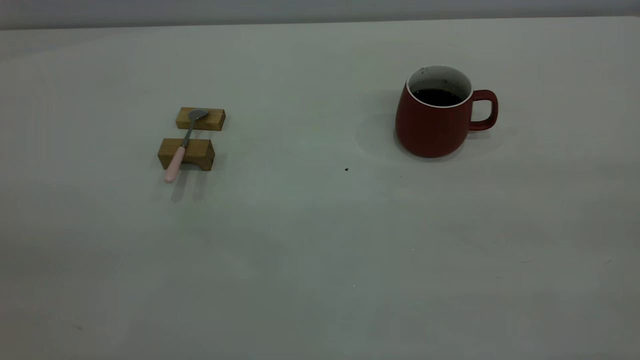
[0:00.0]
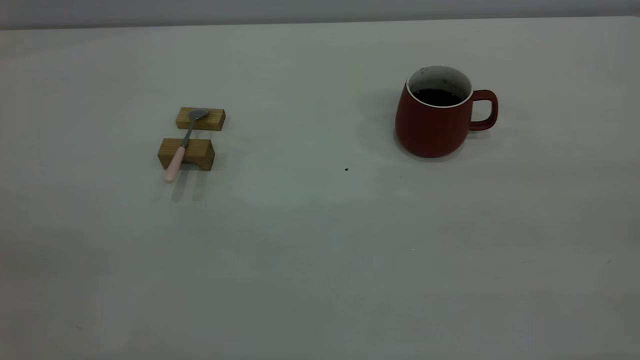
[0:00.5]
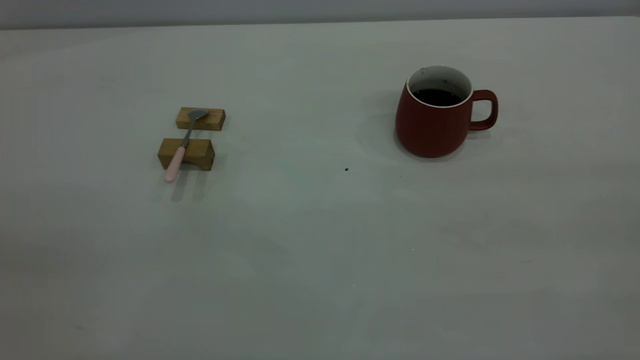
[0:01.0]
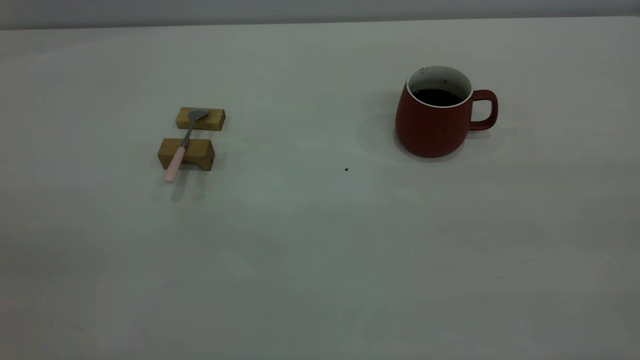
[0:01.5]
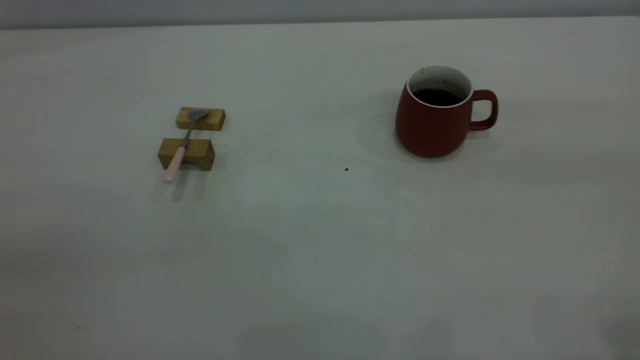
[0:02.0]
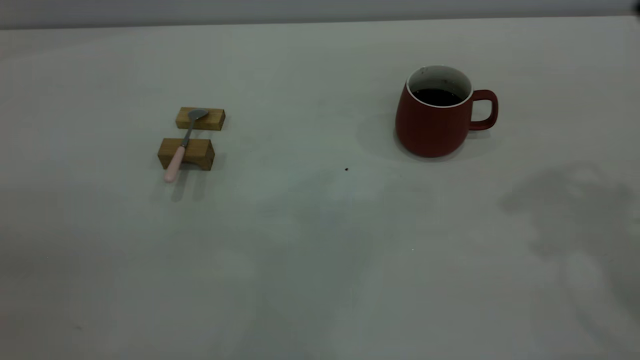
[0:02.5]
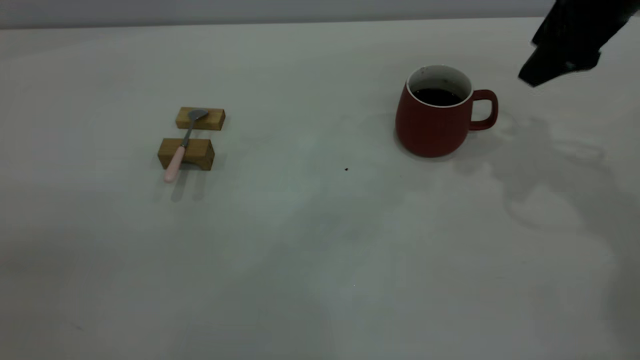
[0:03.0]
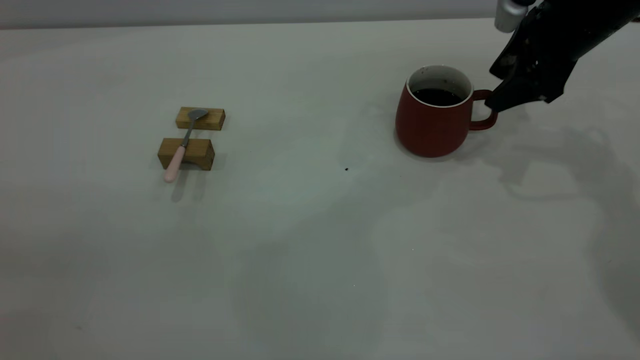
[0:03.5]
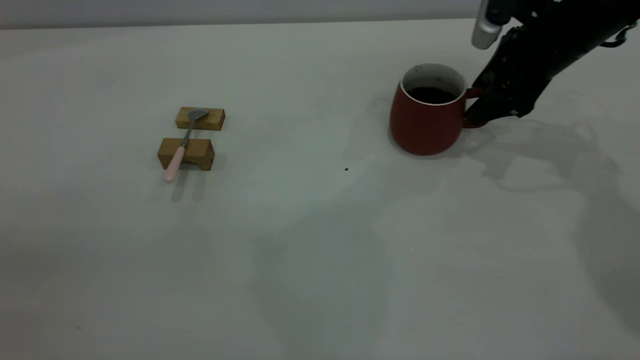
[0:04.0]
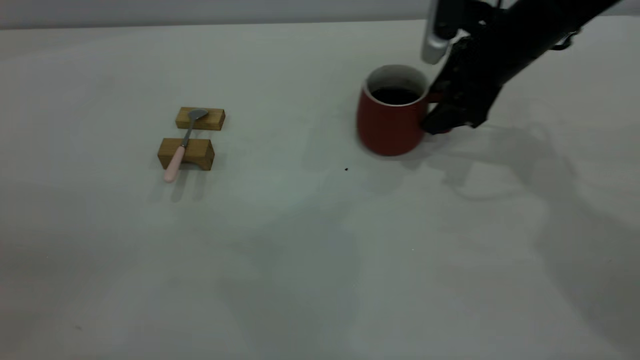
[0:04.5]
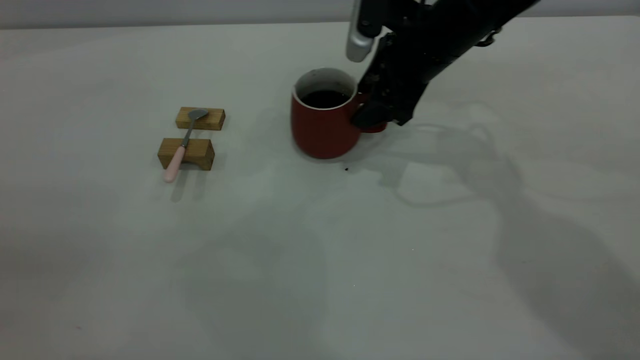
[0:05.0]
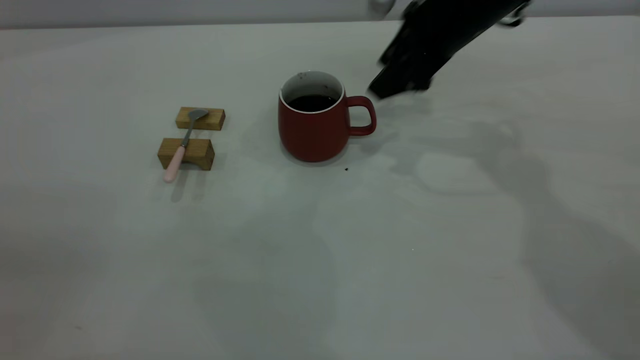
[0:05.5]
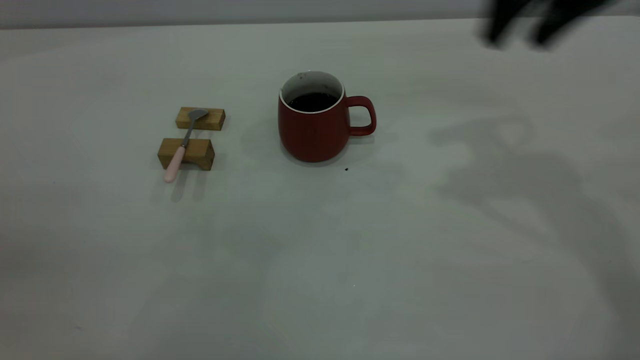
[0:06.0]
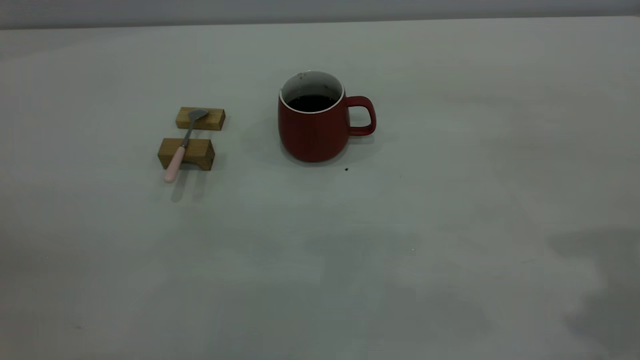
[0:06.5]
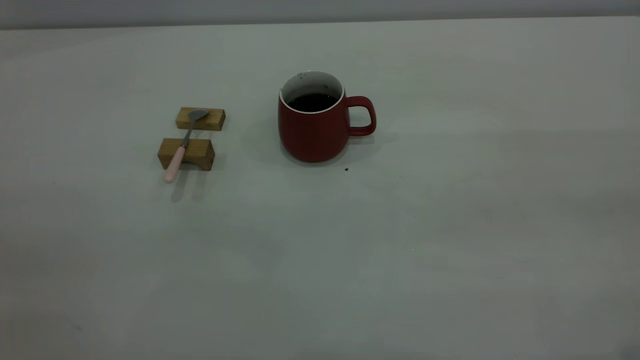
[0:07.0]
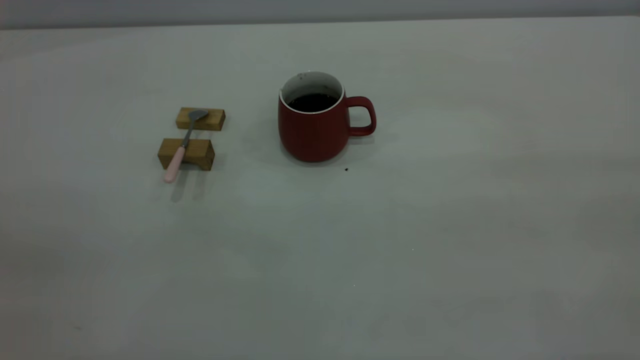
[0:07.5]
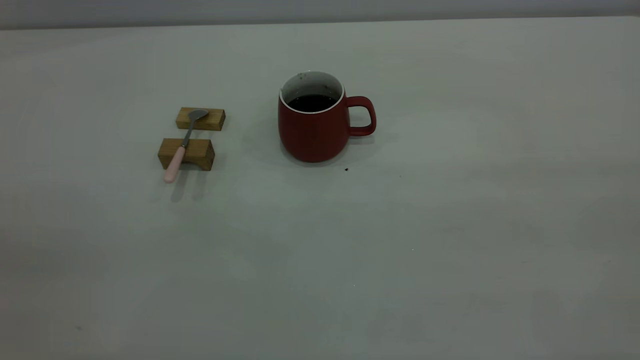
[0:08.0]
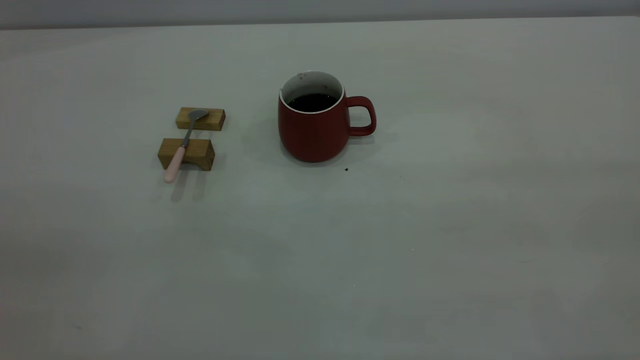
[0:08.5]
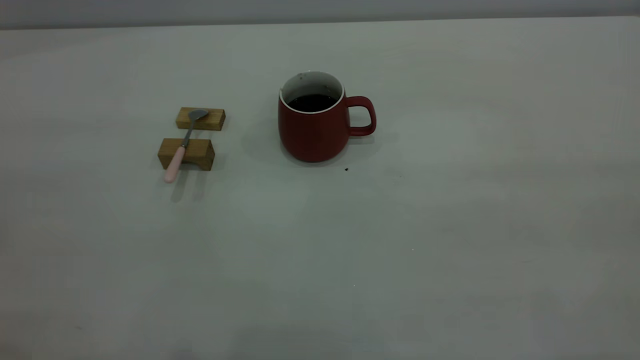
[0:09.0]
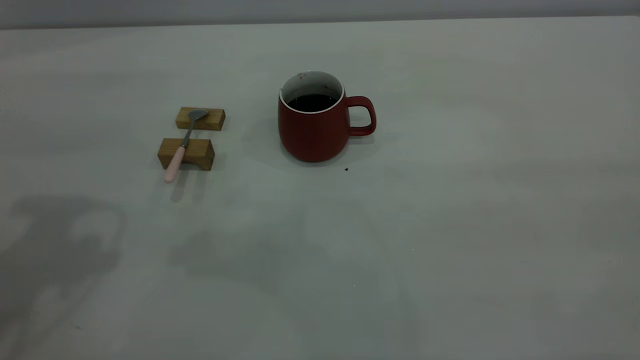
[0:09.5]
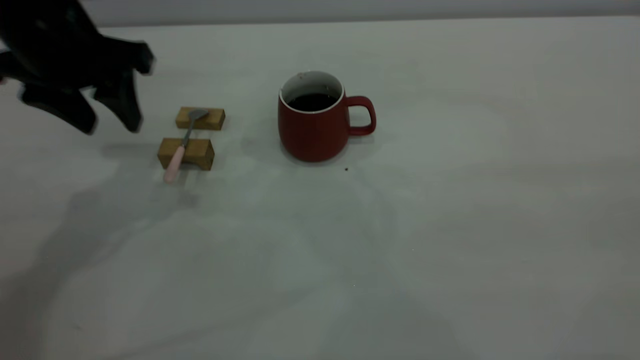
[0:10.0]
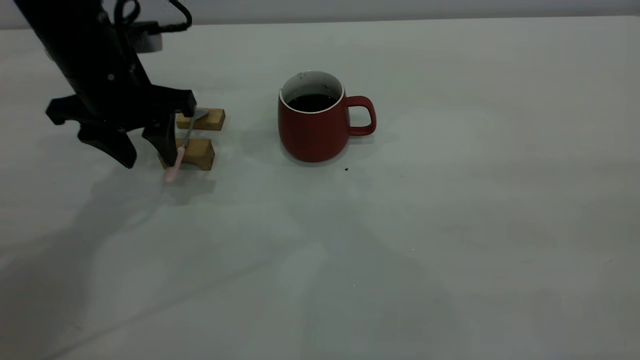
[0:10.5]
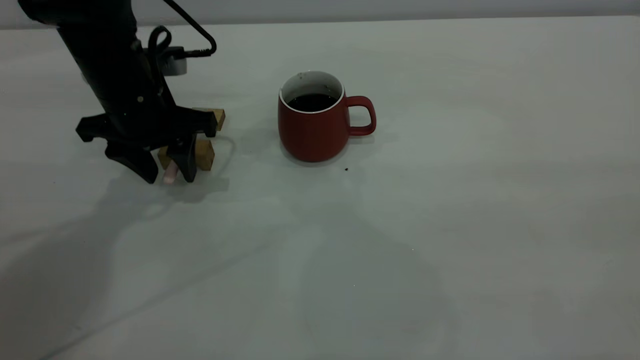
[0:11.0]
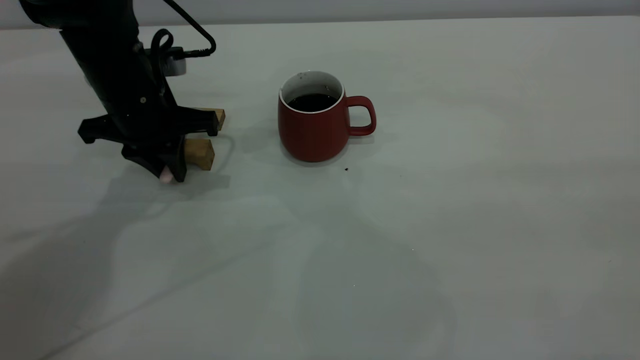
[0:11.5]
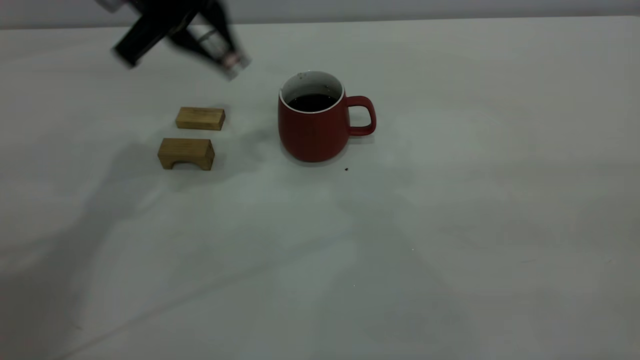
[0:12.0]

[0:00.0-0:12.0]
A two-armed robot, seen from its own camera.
Step, 0:00.0 to 0:05.5: Move the cup with coffee to the center of view.
Step, 0:06.0 to 0:11.5: Pick up the spoon.
0:02.0 to 0:04.0: The right gripper heads forward and downward, covering roughly 40 cm.
0:04.0 to 0:06.0: The right gripper travels upward and backward by roughly 20 cm.
0:06.0 to 0:08.0: The right gripper shifts about 35 cm backward.
0:08.0 to 0:10.0: The left gripper travels forward and downward by some 40 cm.
0:10.0 to 0:12.0: The left gripper travels to the right and forward by approximately 10 cm, travels downward and back again, about 10 cm each way, and closes its fingers.

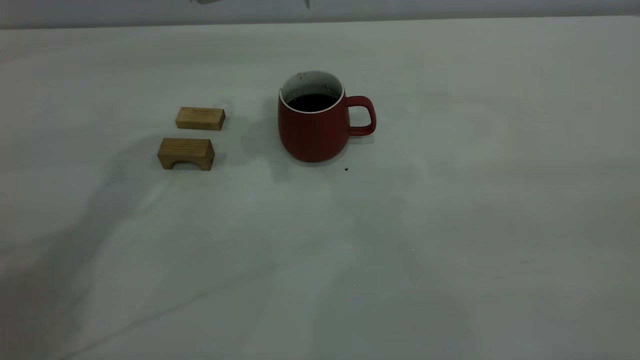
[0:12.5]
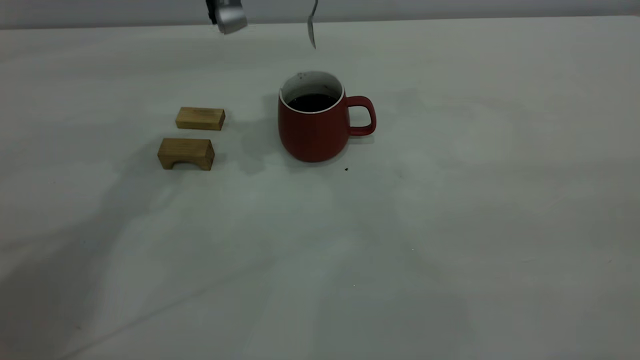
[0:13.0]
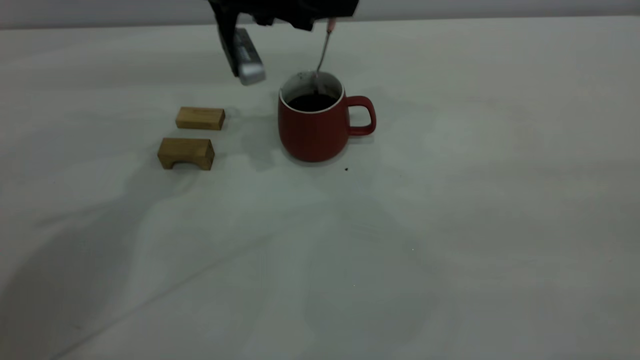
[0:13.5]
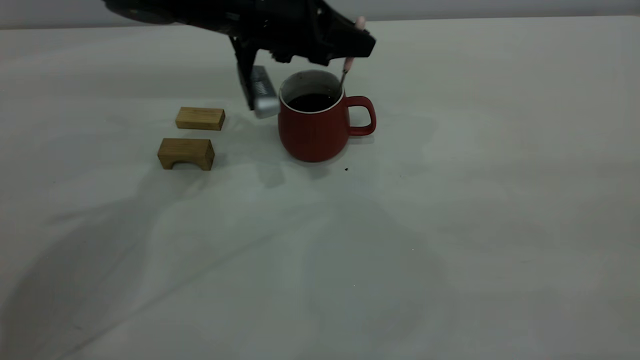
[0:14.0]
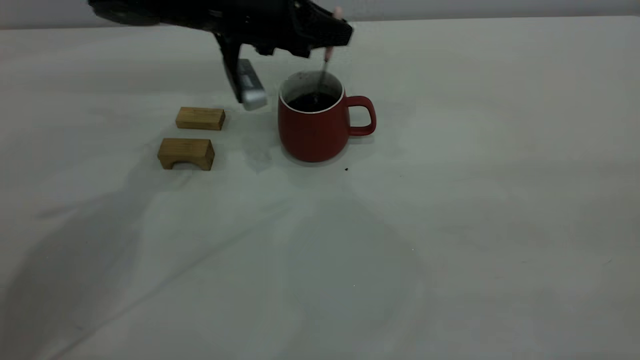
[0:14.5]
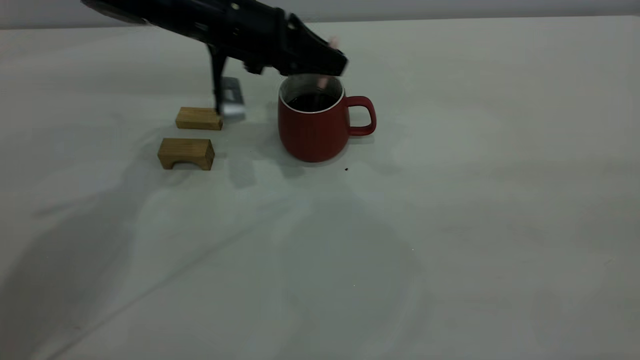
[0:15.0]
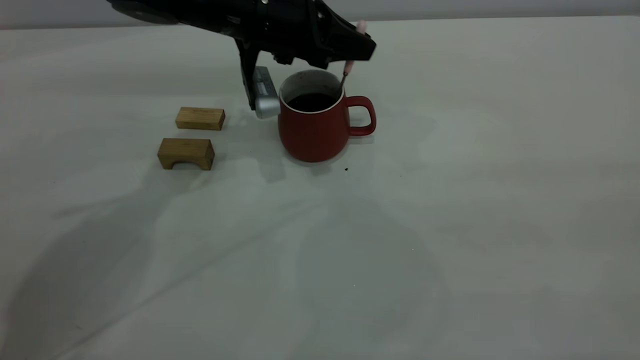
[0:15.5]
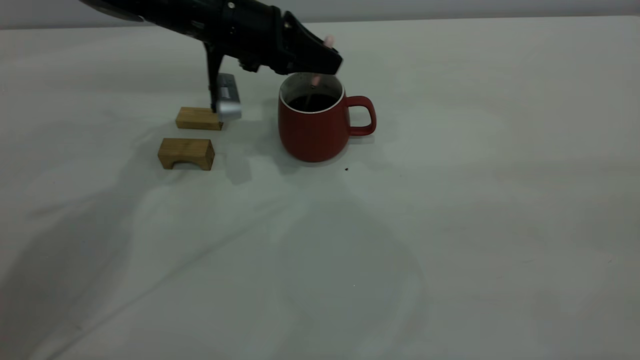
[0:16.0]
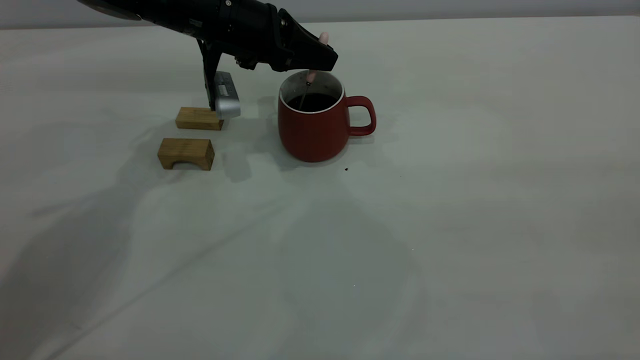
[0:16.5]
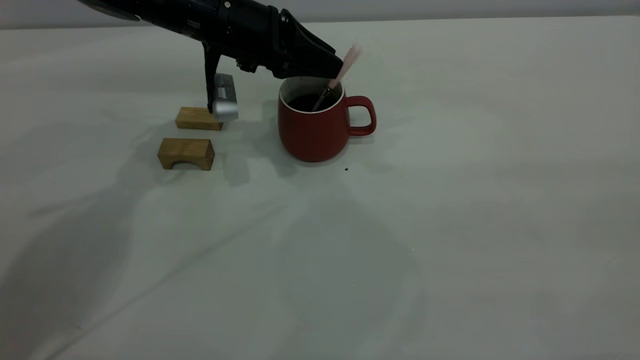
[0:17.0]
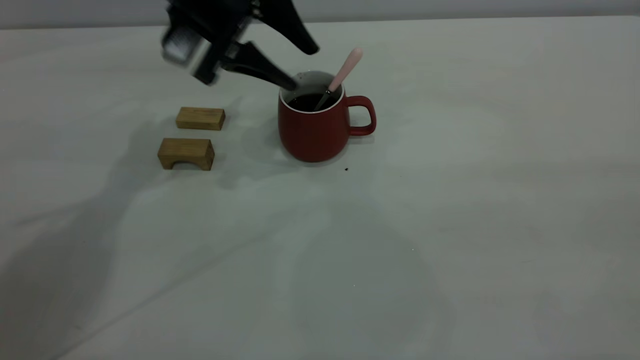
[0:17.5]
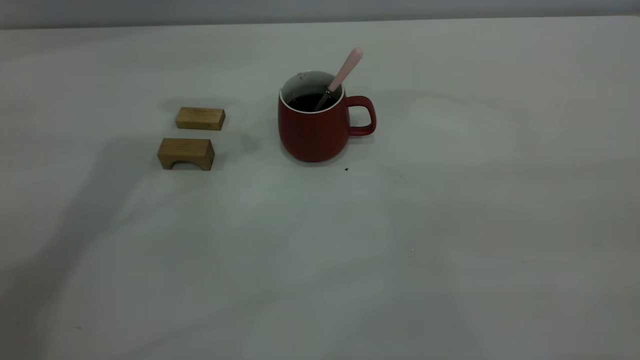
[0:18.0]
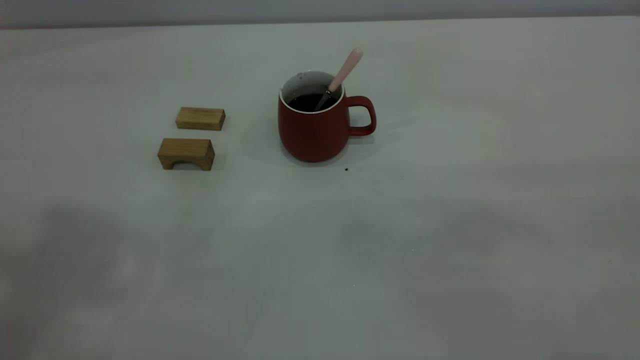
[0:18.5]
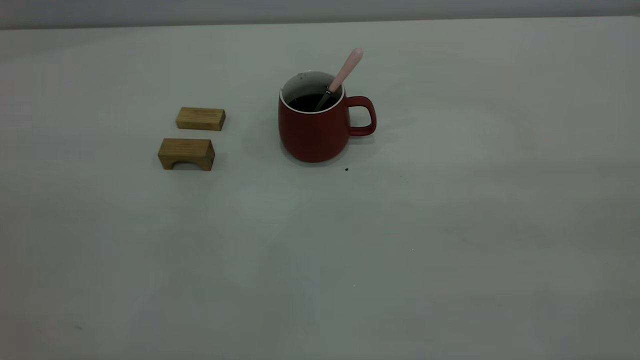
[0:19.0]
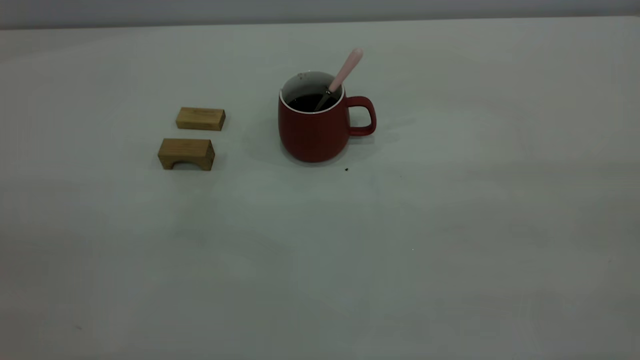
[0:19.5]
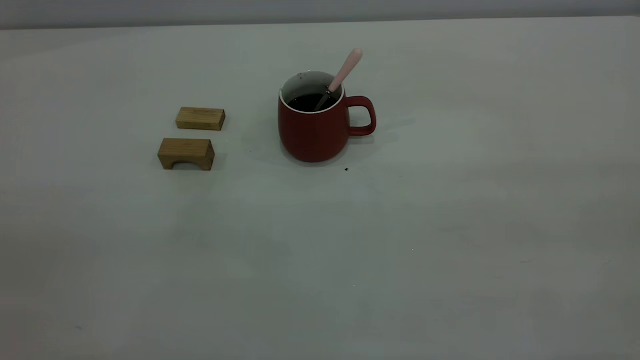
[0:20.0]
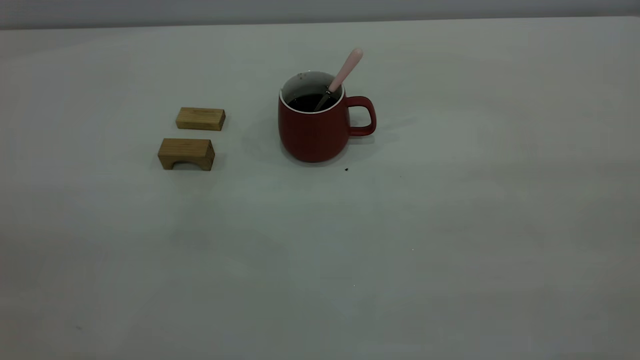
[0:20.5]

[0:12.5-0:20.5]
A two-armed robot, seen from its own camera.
Step, 0:12.5 to 0:17.0: Stir the coffee in the cup.
0:12.5 to 0:14.5: The left gripper moves downward, about 15 cm.
0:14.5 to 0:16.5: The grippers make only small movements.
0:16.5 to 0:18.5: The left gripper is displaced upward and backward by approximately 40 cm, and opens.
